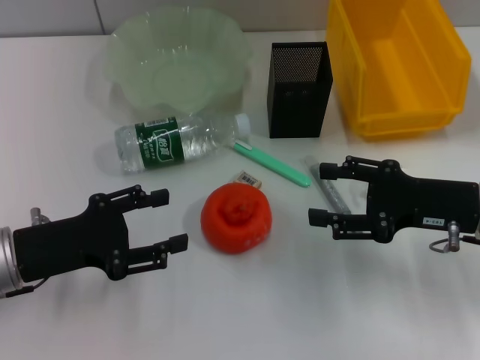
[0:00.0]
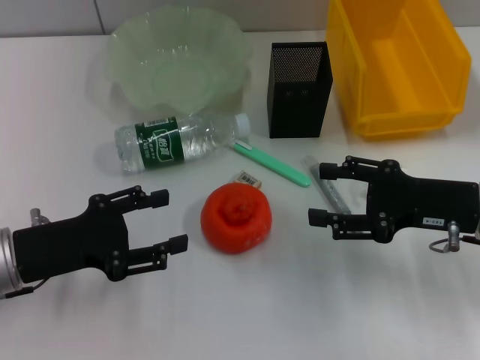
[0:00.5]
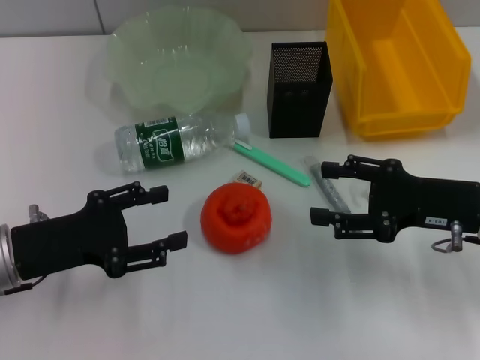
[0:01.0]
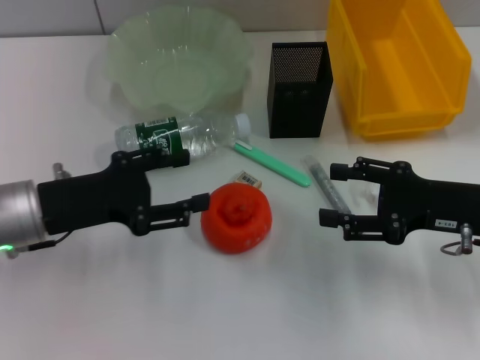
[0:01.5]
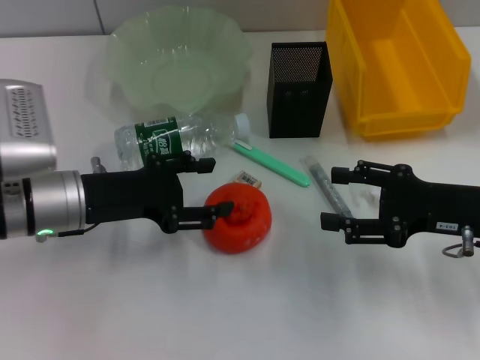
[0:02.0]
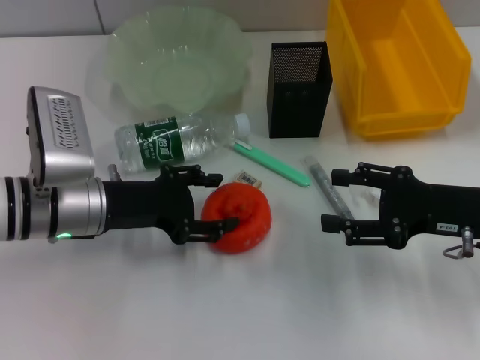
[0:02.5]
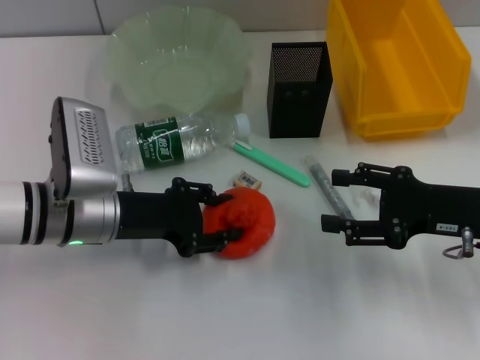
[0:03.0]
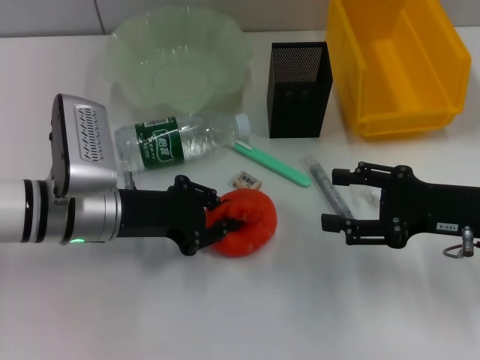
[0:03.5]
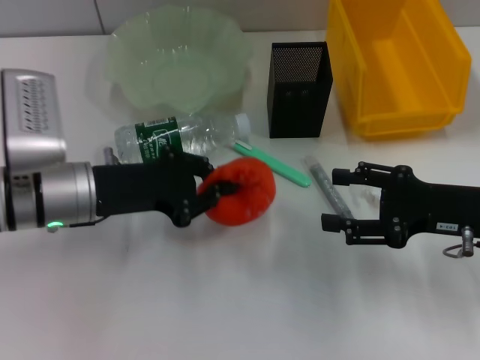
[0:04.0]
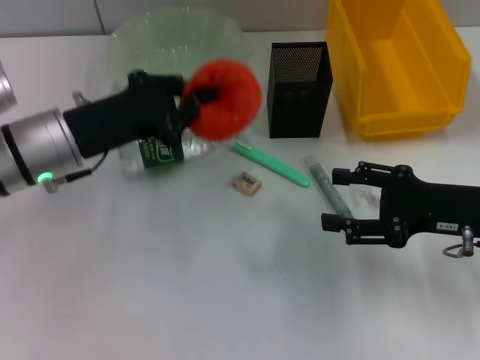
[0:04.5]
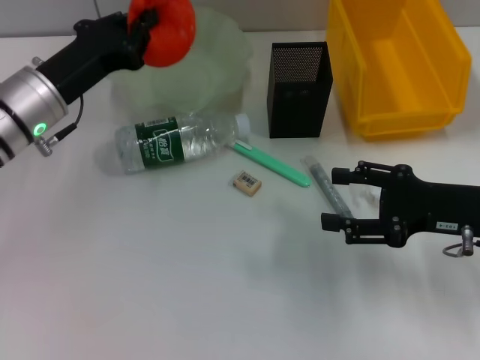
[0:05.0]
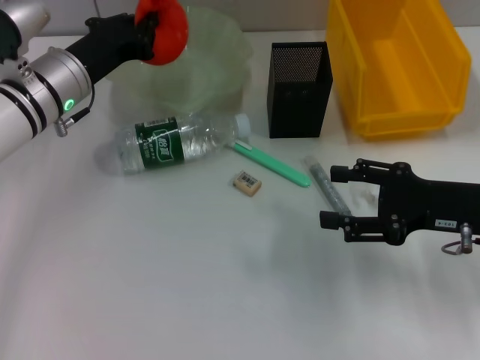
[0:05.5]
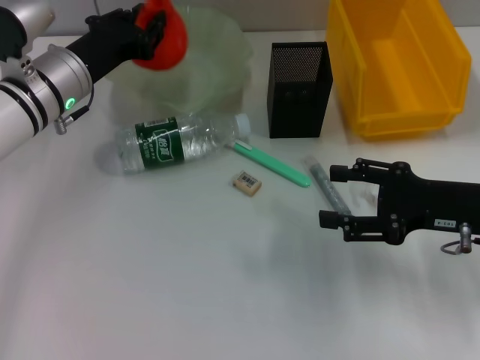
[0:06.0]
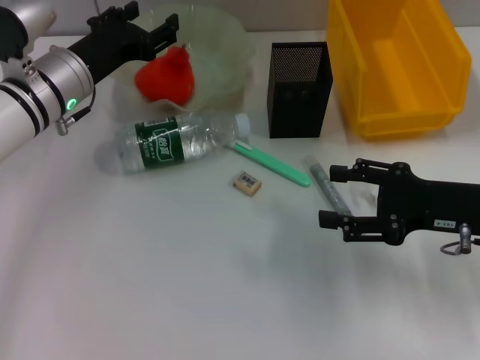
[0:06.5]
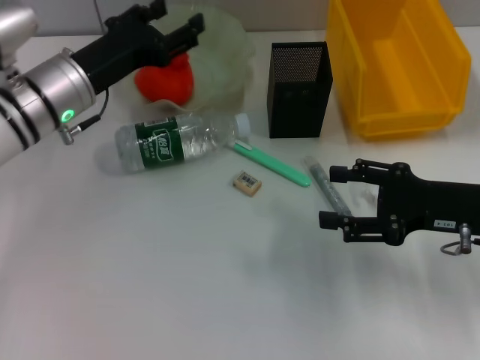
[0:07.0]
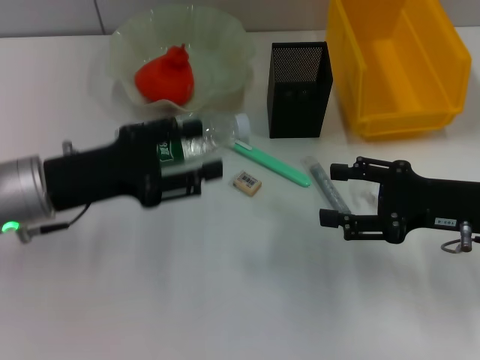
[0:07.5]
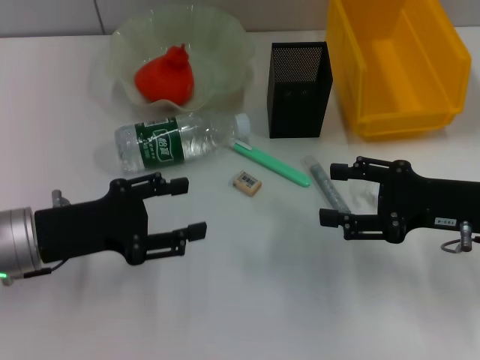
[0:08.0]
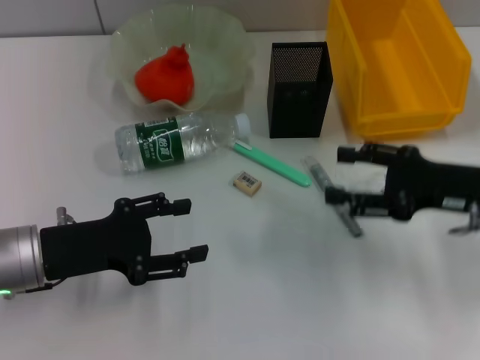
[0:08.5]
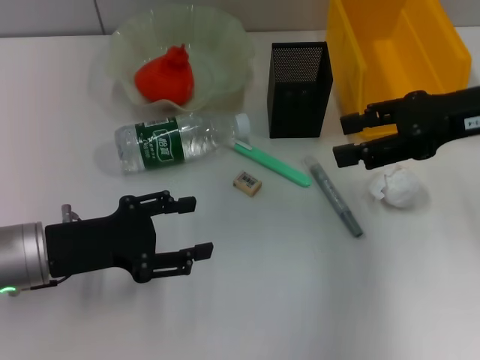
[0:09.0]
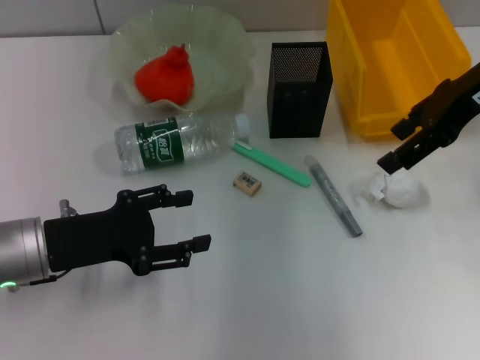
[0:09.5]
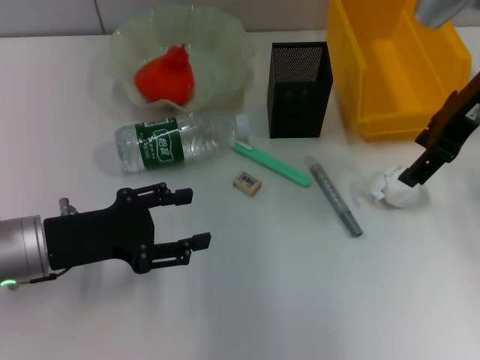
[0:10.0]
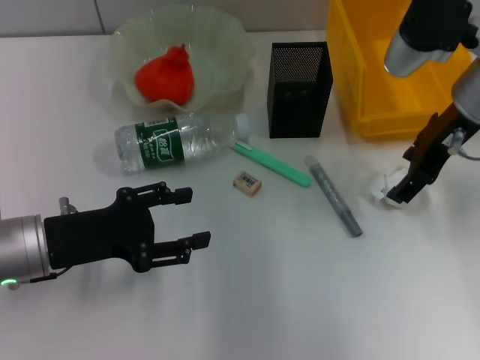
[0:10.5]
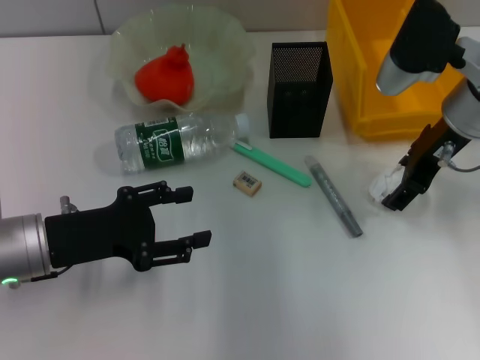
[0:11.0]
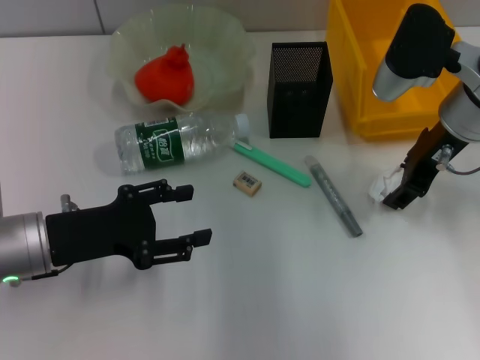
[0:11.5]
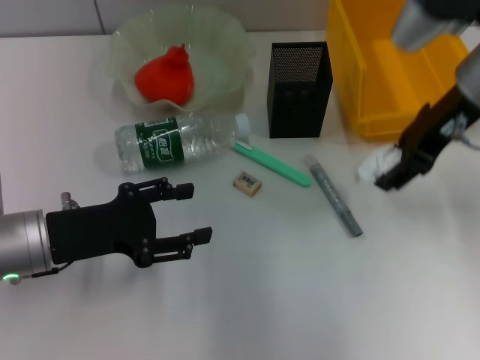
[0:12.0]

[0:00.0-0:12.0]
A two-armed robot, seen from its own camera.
Step, 0:00.0 to 0:03.0: Grab the orange with the left hand.
Step, 0:04.0 to 0:06.0: Place the orange into the fruit bowl with the left hand.
Step, 0:06.5 to 0:11.0: Grab the paper ball with the right hand.
0:00.0 to 0:02.0: The left gripper travels forward and to the right by about 10 cm.
0:02.0 to 0:04.0: The left gripper closes its fingers.
0:04.0 to 0:06.0: The left gripper goes roughly 10 cm forward.
0:06.0 to 0:08.0: The left gripper moves backward, about 15 cm, and opens its fingers.
0:08.0 to 0:10.0: The right gripper is displaced upward and forward by about 15 cm.

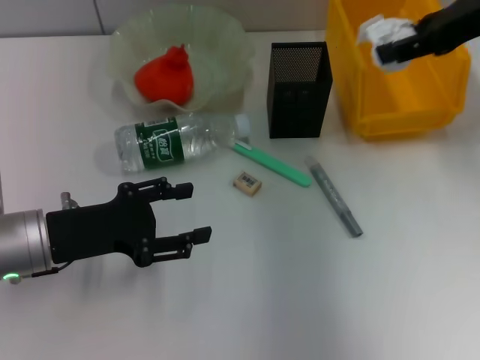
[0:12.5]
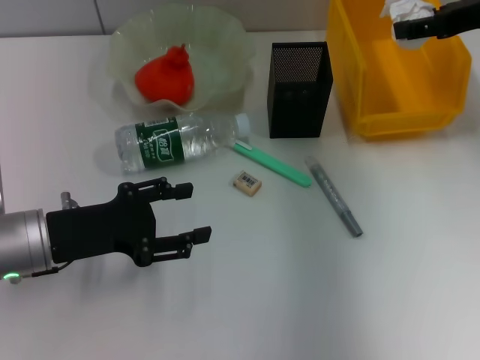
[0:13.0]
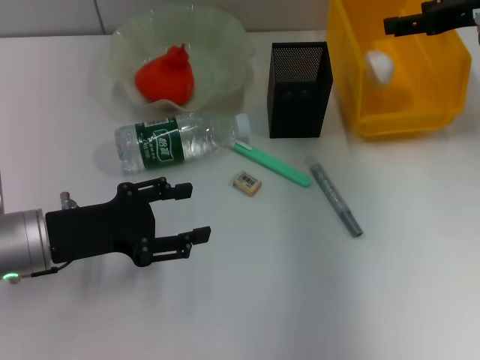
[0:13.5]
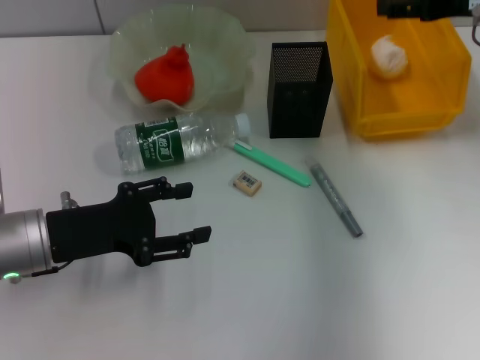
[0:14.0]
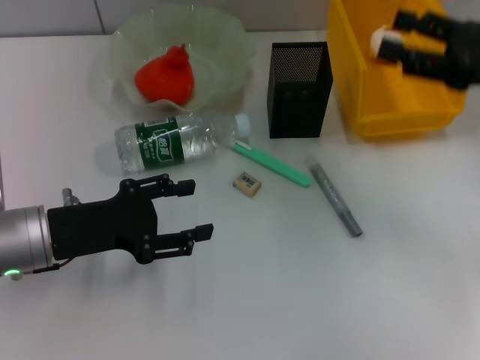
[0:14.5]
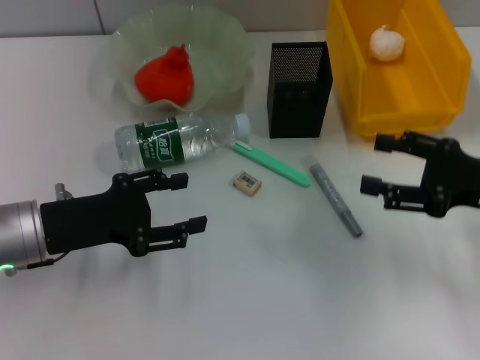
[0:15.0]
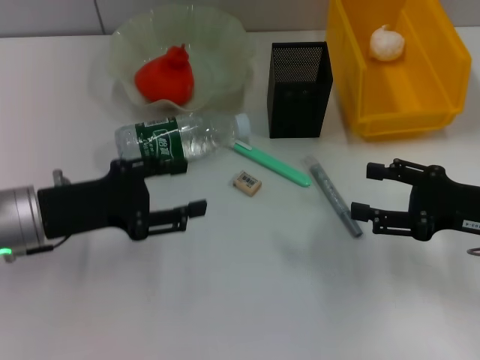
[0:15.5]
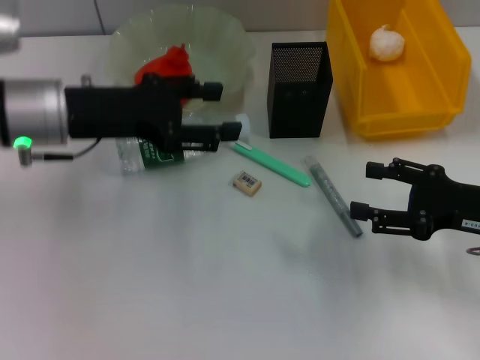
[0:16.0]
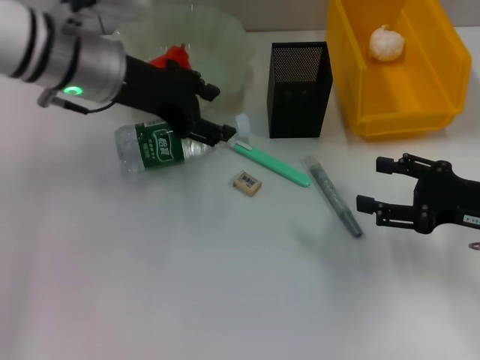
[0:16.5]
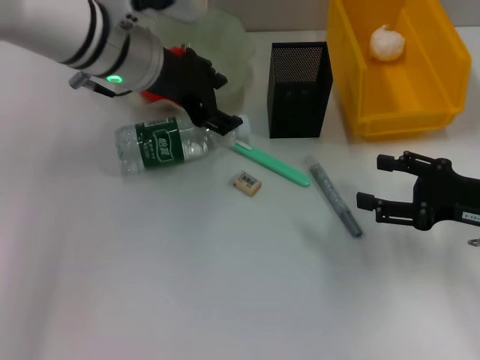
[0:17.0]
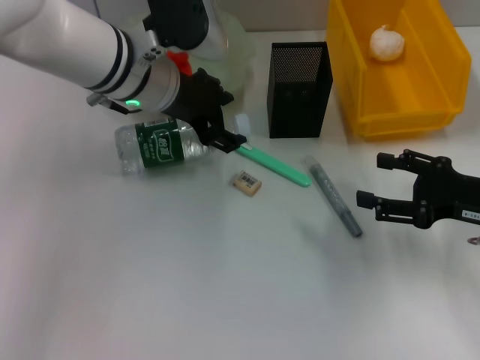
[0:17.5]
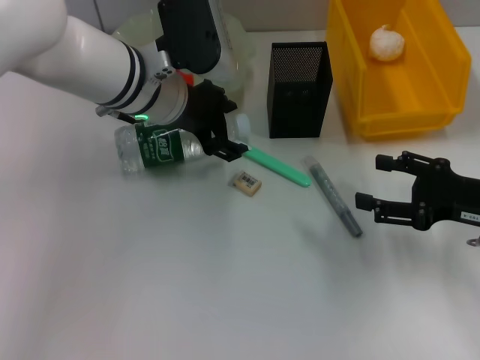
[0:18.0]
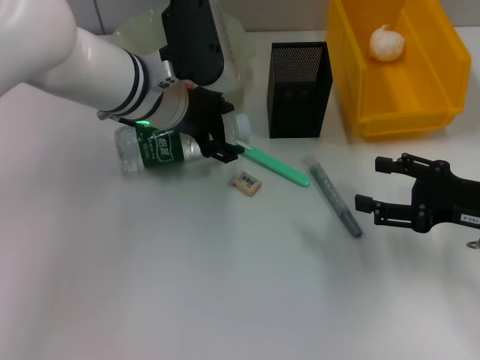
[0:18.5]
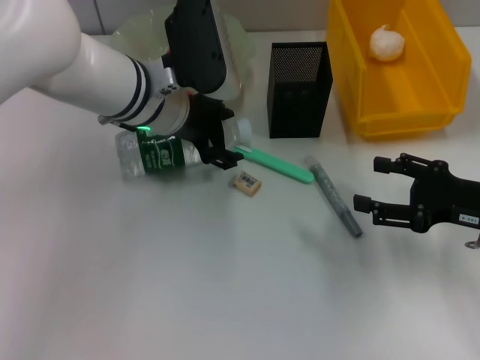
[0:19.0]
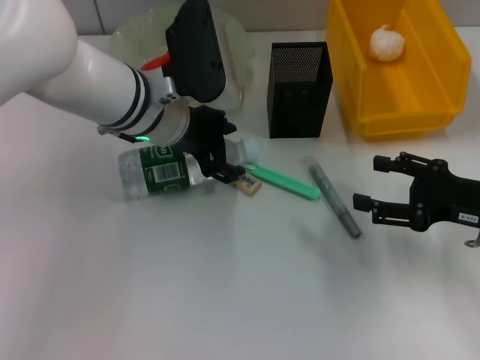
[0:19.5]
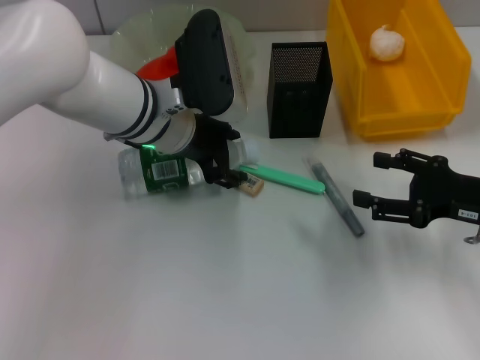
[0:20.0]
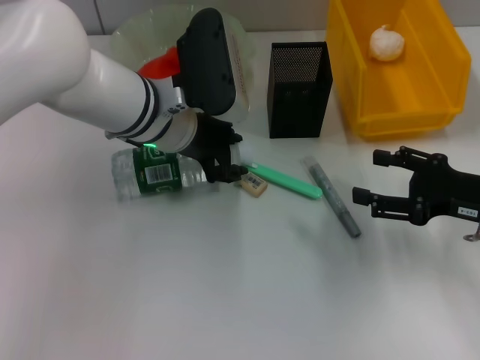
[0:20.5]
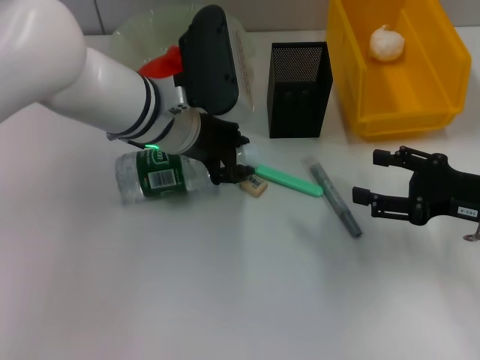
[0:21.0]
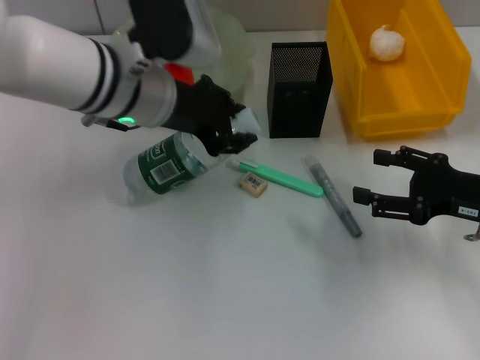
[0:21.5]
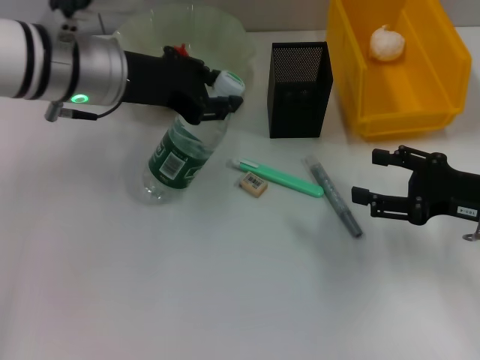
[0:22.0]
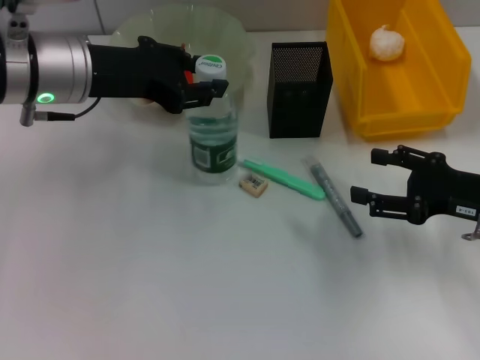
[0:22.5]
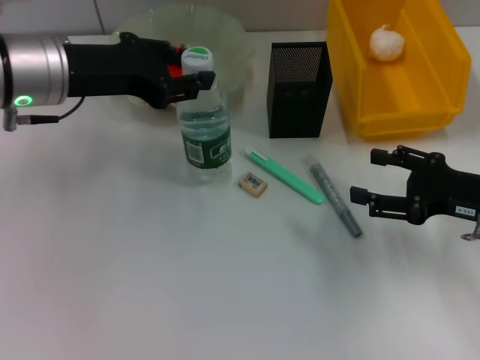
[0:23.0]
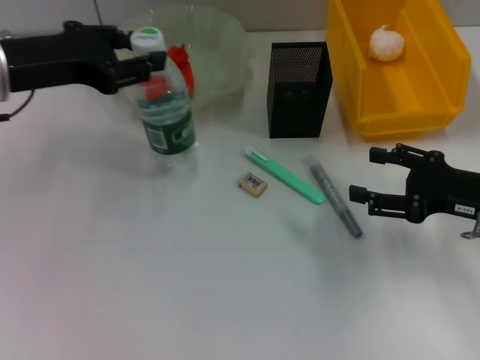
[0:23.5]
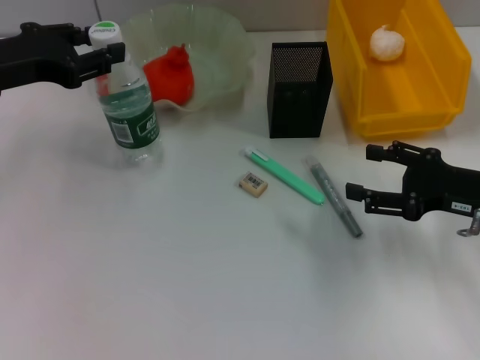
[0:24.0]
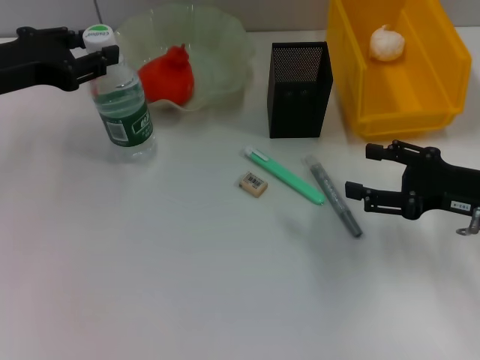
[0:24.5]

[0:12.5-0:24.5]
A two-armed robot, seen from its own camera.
Step, 0:14.0 to 0:20.5: Grab the water bottle with the left hand.
0:12.5 to 0:14.5: The right gripper shifts roughly 10 cm downward and backward, and opens.
0:14.5 to 0:16.5: The left gripper travels forward, upward and to the right by about 20 cm, while the right gripper goes roughly 10 cm downward and backward.
0:16.5 to 0:18.5: The left gripper travels to the right by about 5 cm.
0:18.5 to 0:20.5: The grippers move only a little.
0:20.5 to 0:22.5: The left gripper is displaced to the left and upward by approximately 10 cm.
0:22.5 to 0:24.5: The left gripper goes some 10 cm to the left.

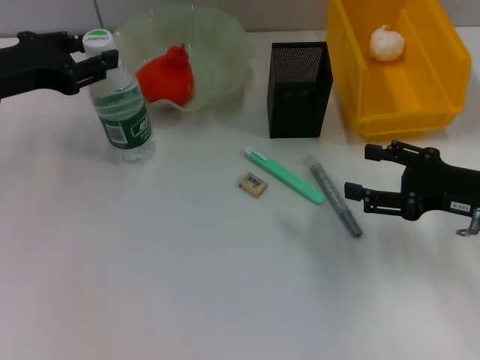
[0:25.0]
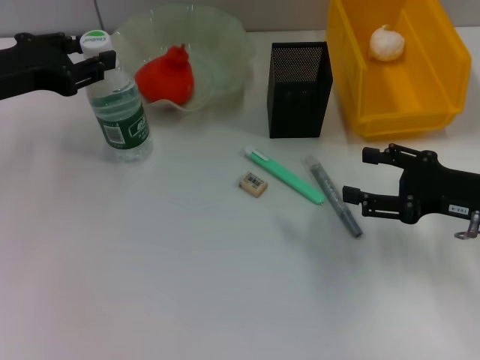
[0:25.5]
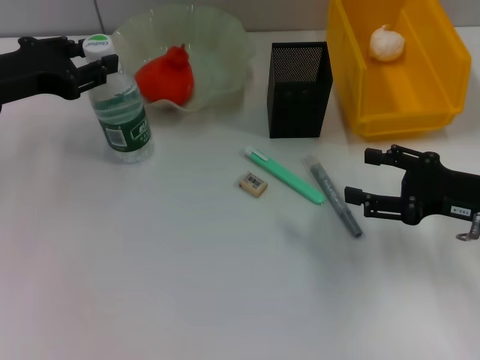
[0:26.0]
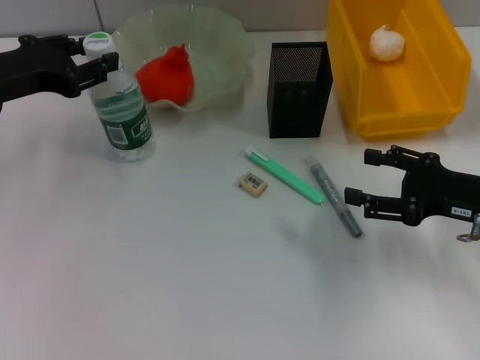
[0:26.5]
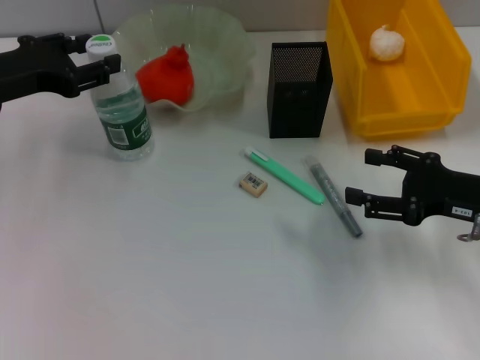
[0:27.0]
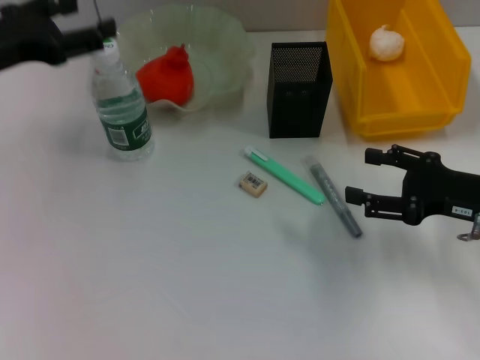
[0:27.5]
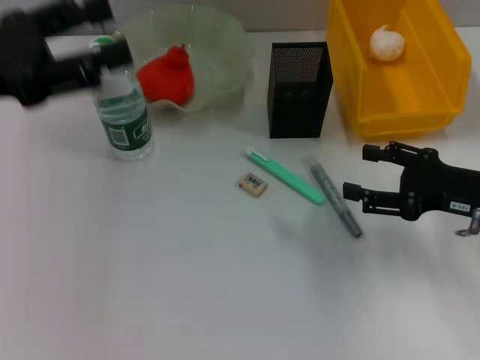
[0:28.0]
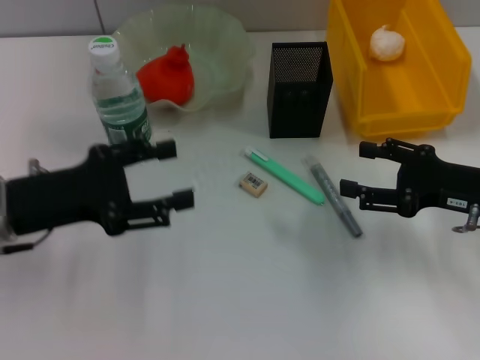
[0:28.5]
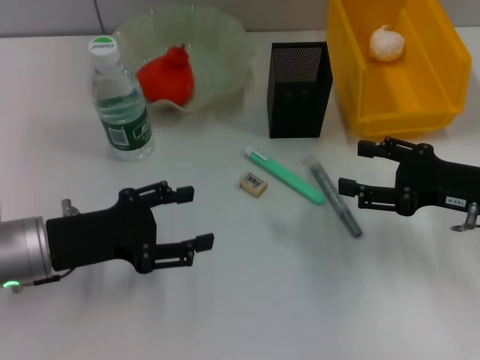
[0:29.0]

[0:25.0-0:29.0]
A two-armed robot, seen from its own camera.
Step, 0:25.0 to 0:27.5: Place the water bottle on the table with the left hand.
0:25.0 to 0:27.0: Both grippers stay about where they are.
0:27.0 to 0:29.0: The left gripper is displaced downward and backward by some 15 cm.
